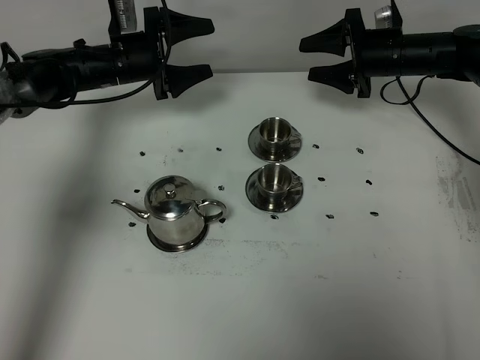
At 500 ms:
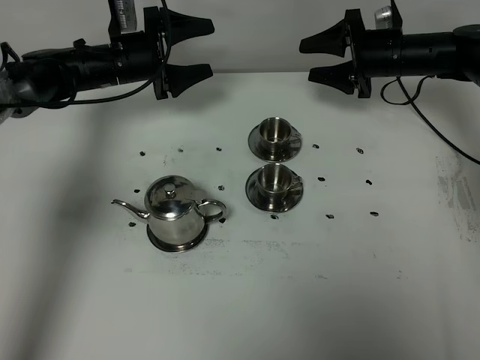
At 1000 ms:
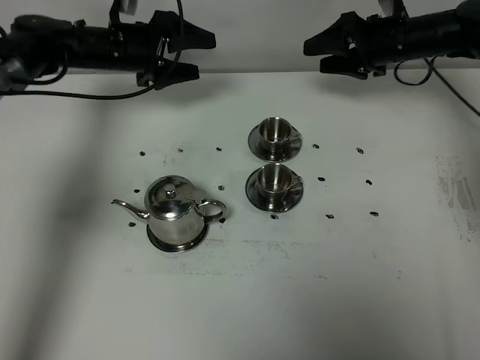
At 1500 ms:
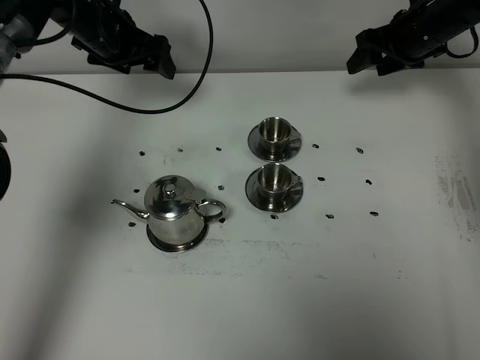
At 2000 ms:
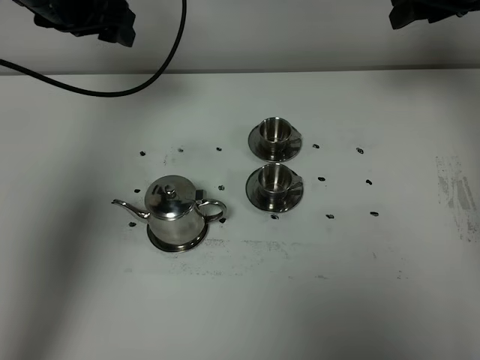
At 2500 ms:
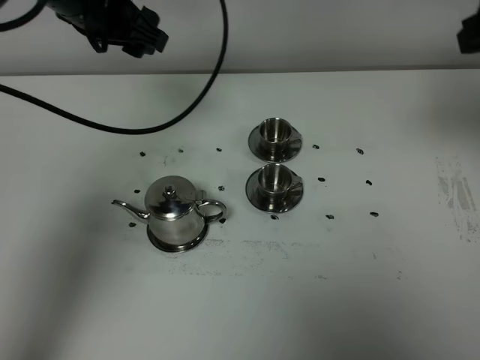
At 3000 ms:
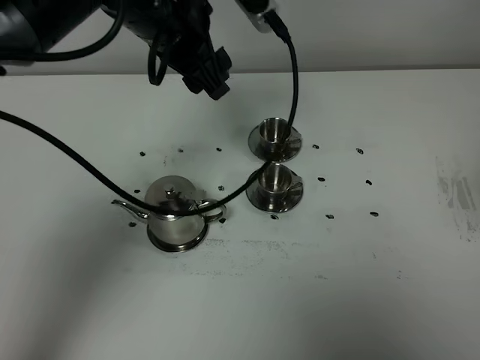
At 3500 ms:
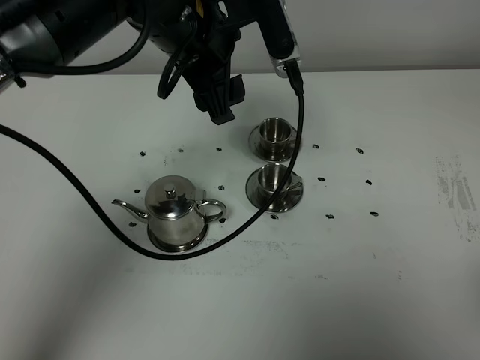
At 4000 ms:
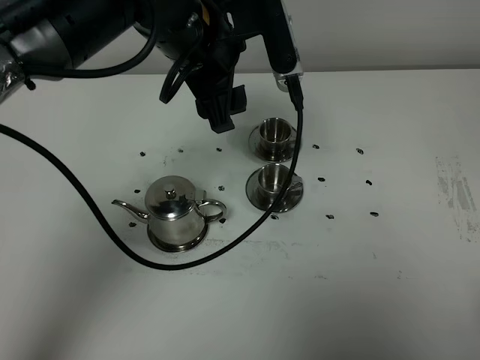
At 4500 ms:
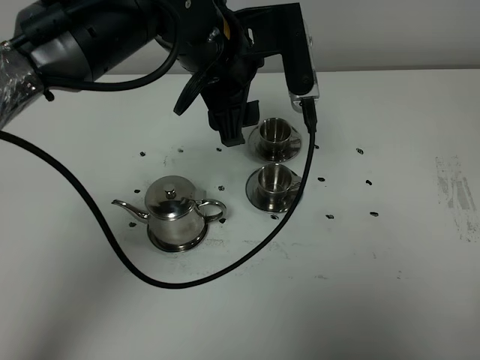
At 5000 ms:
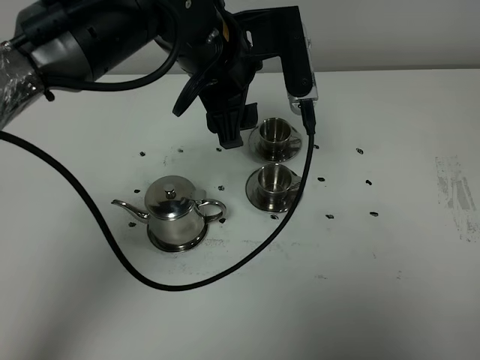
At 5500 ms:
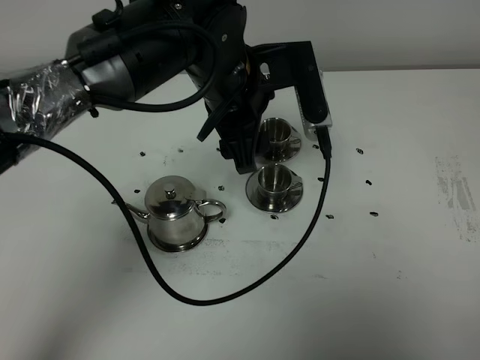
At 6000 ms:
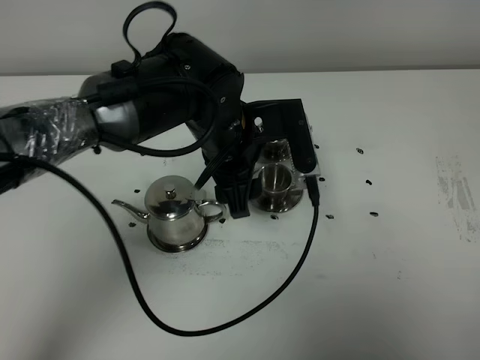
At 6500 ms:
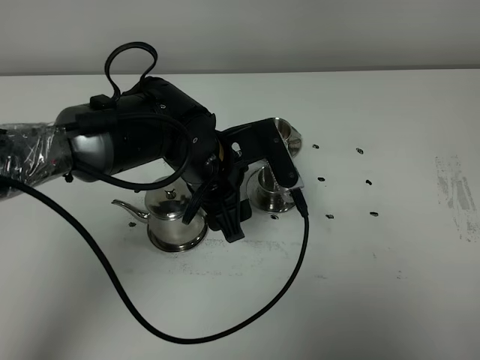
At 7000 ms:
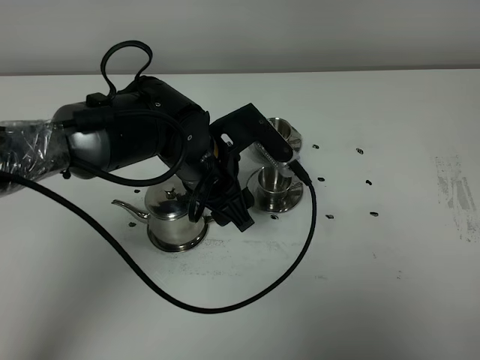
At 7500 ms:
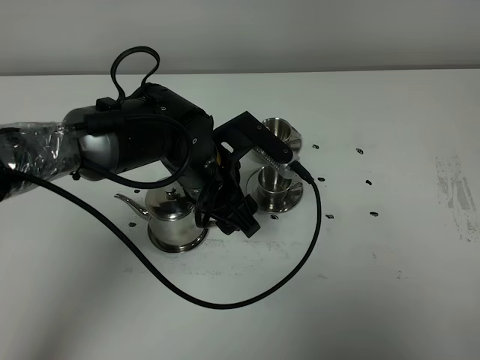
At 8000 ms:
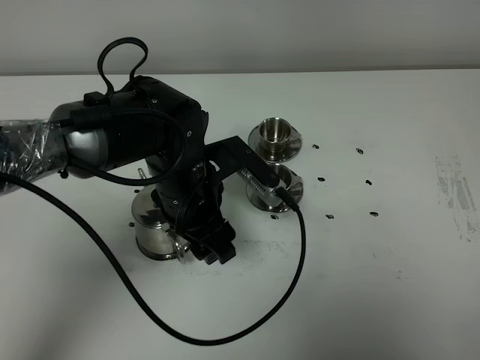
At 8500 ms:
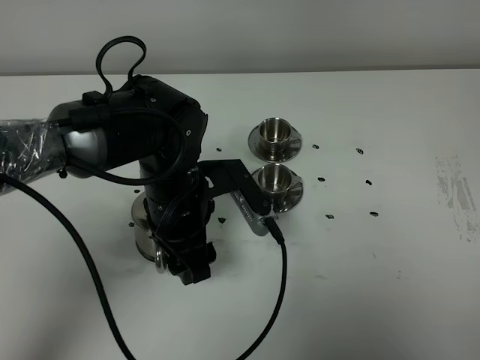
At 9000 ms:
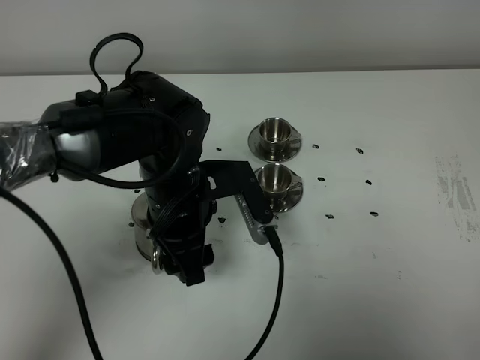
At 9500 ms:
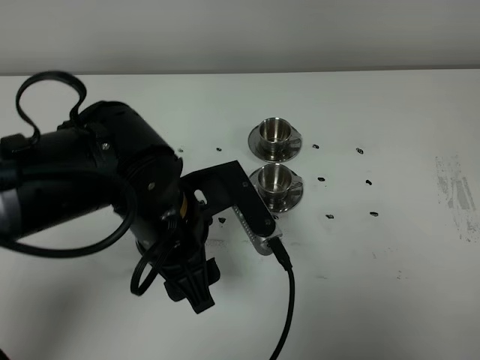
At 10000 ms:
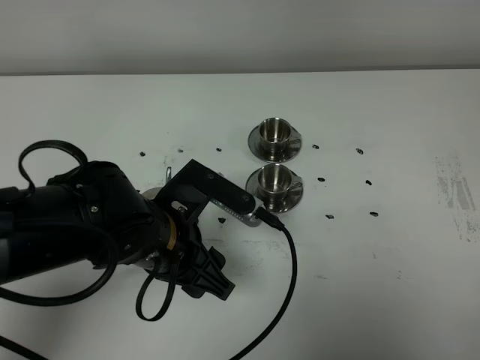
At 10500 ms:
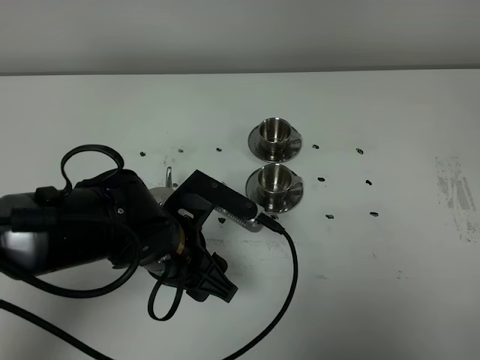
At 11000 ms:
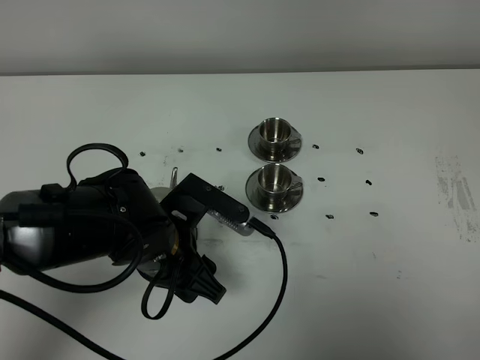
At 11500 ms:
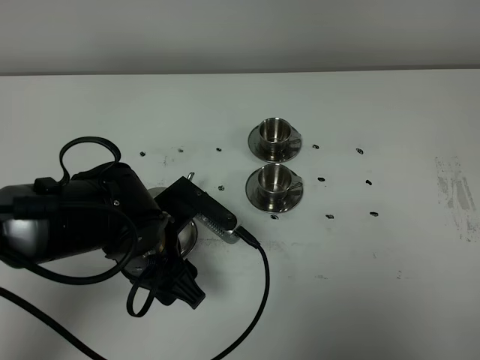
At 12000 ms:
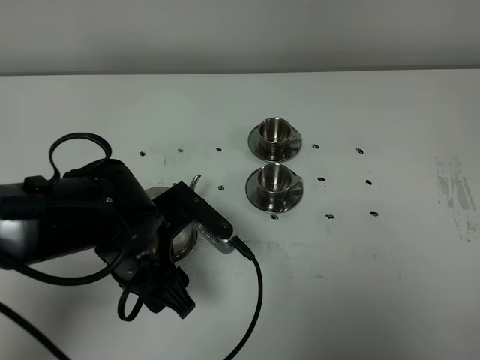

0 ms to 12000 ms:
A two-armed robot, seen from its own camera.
Task of the whole recording: grasp the stainless steel teapot and pour the tea into the two stainless steel teacups one by one, put the stainless steel teapot back in its original place.
0 ms to 2000 ms: The right gripper moves upward and backward, about 20 cm, while the left gripper is displaced upward by approximately 15 cm.
2000 ms to 4000 ms: The right gripper shifts roughly 40 cm backward, while the left gripper travels to the right and backward by about 20 cm.
4000 ms to 6000 ms: The left gripper heads downward, covering about 10 cm.
6000 ms to 8000 ms: The left gripper ends up approximately 5 cm from where it was.
8000 ms to 10000 ms: The left gripper shifts some 10 cm backward.
10000 ms to 12000 ms: The grippers stay close to where they were, moving slightly.

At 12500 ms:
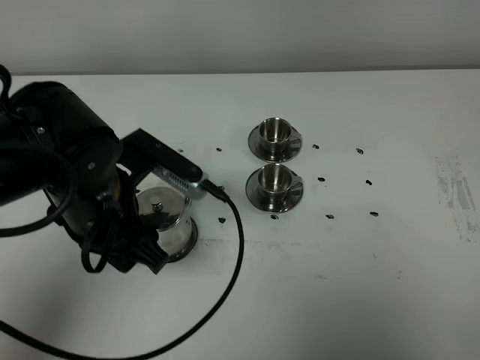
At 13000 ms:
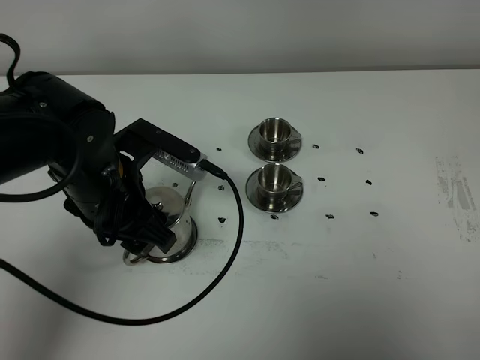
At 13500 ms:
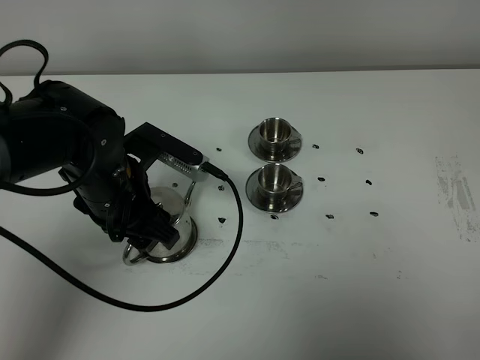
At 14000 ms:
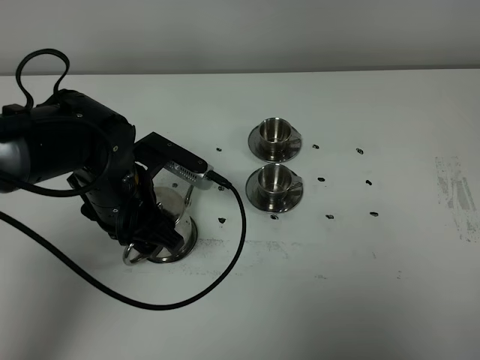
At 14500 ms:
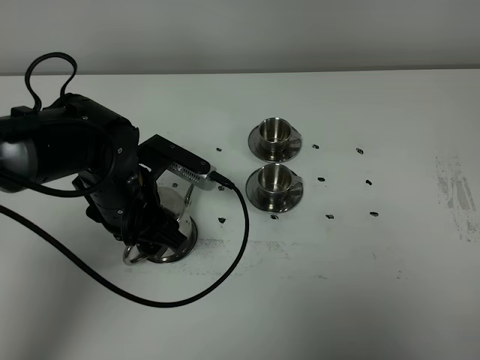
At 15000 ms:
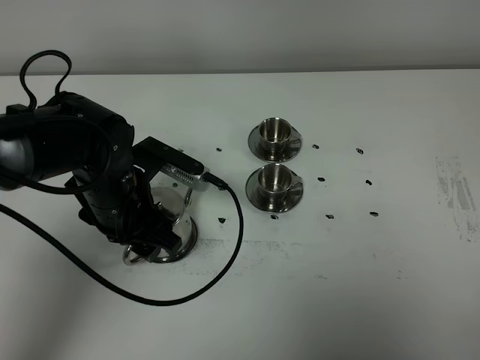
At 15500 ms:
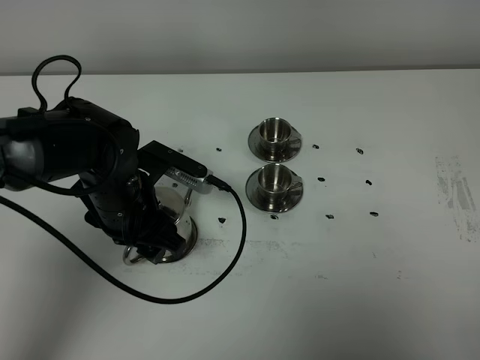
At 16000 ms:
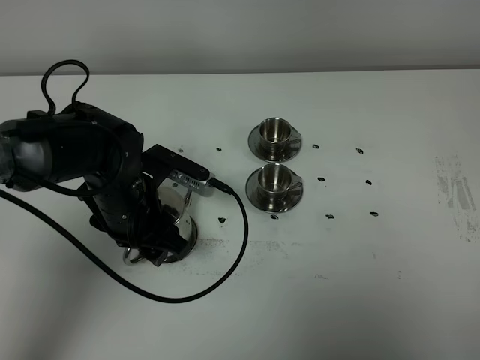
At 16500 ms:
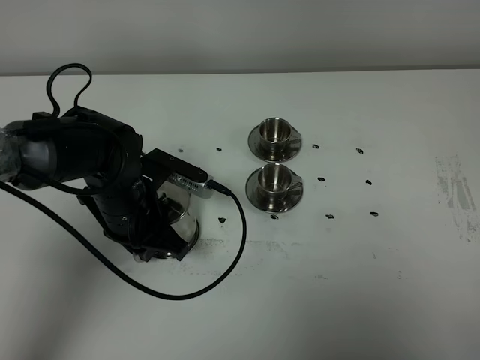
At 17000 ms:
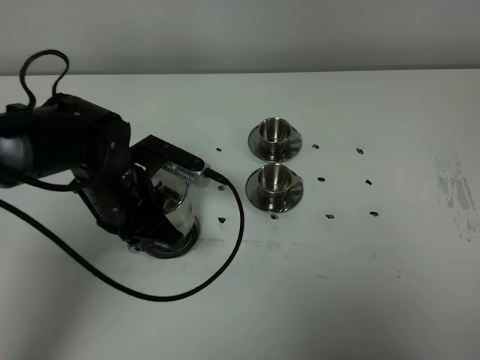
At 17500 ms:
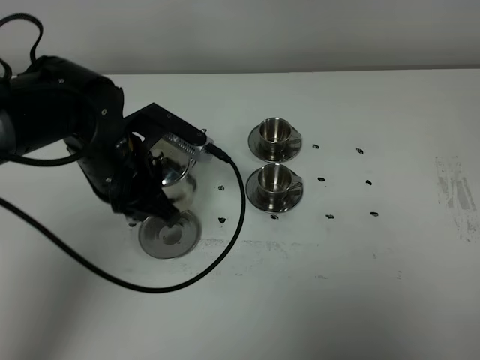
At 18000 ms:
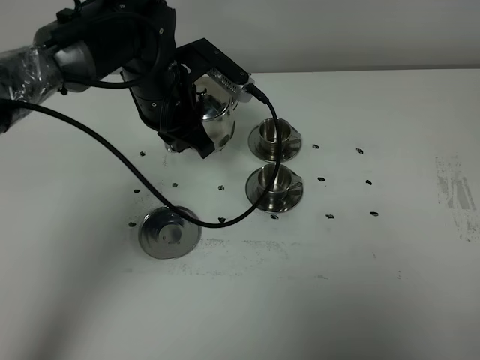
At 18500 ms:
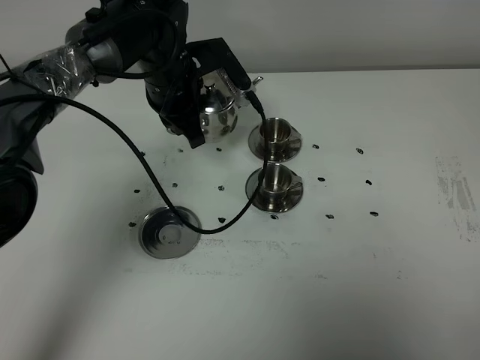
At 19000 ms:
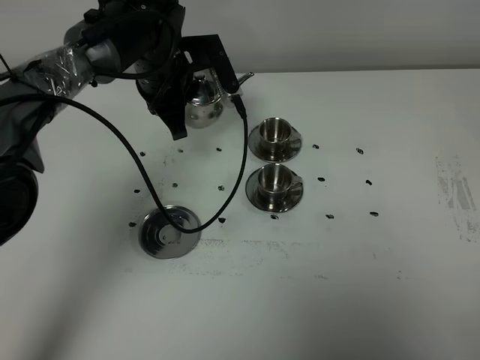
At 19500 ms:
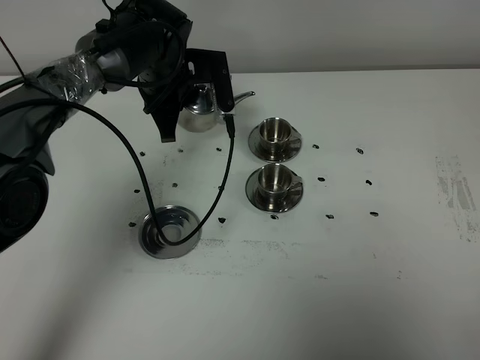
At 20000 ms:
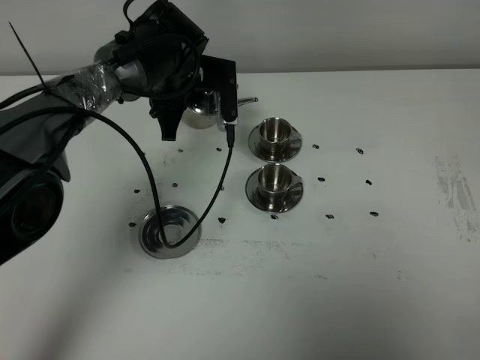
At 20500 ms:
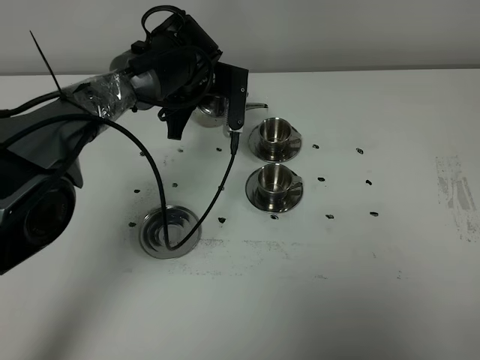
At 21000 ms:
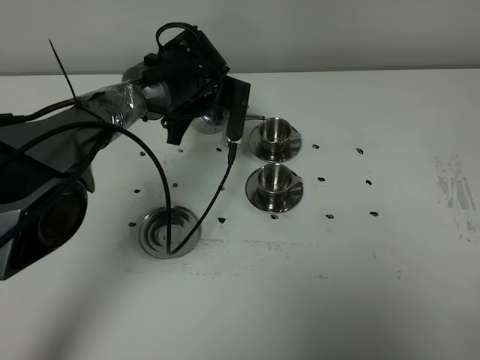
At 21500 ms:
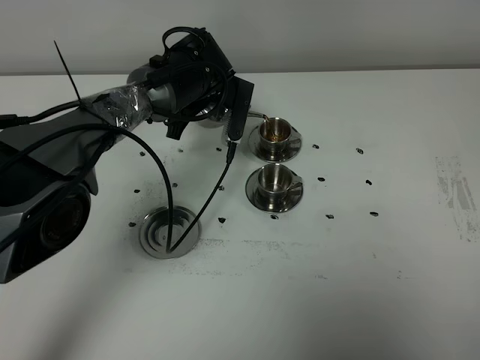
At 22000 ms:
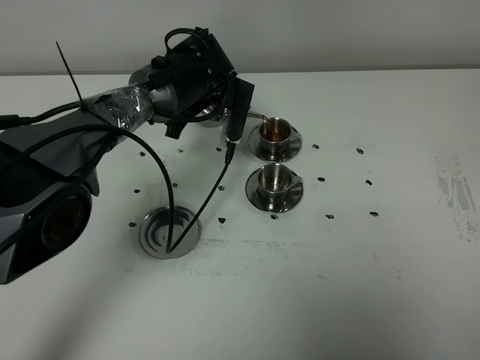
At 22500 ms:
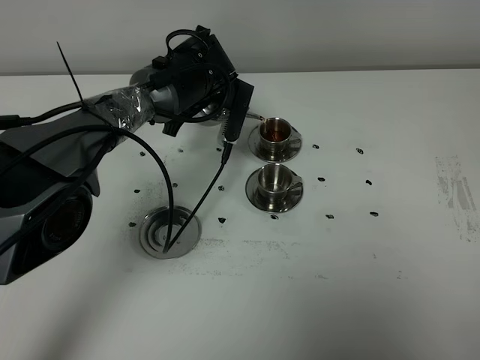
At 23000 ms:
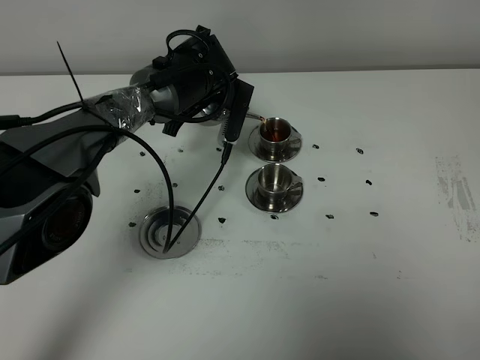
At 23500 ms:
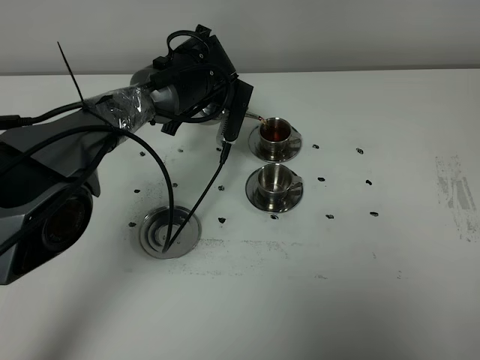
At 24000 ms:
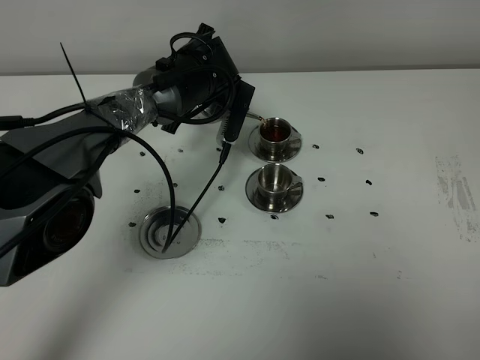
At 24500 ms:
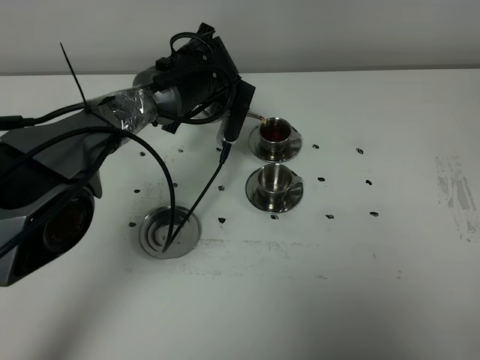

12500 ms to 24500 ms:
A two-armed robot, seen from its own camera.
Task of the whole recording: grasp the stainless steel teapot and pour the tea into the two stainless steel teacups one by one, put the stainless steel teapot back in its original place.
Step, 12500 ms to 16500 ms: Pick up the teapot with the left gripper.
12500 ms to 14500 ms: The left gripper moves downward and forward, some 10 cm.
14500 ms to 16500 ms: The left gripper closes its fingers.
16500 ms to 18500 ms: The left gripper is displaced forward and upward by roughly 15 cm.
20500 ms to 22500 ms: The grippers stay close to where they were, moving slightly.
22500 ms to 24500 ms: The two grippers keep their place.

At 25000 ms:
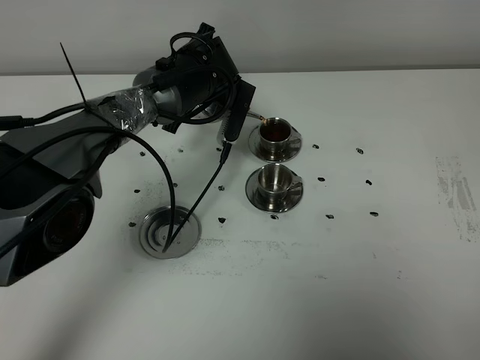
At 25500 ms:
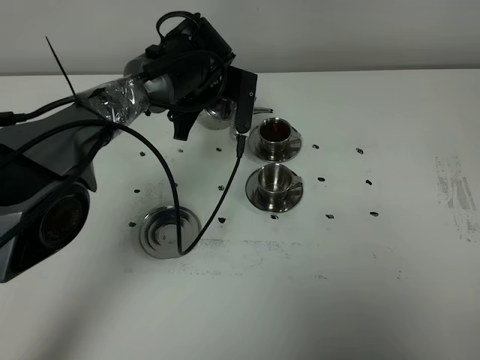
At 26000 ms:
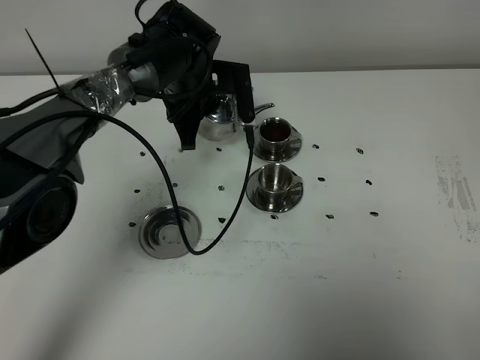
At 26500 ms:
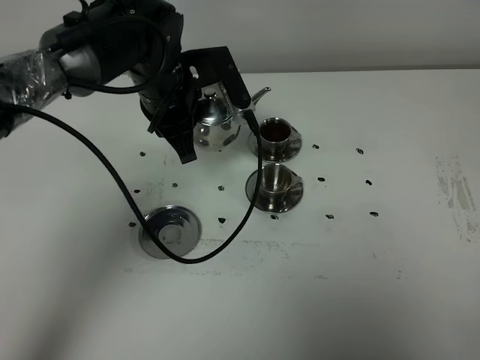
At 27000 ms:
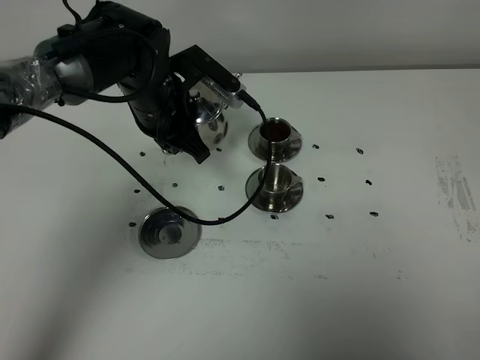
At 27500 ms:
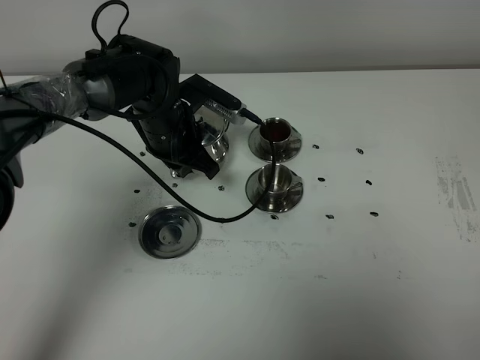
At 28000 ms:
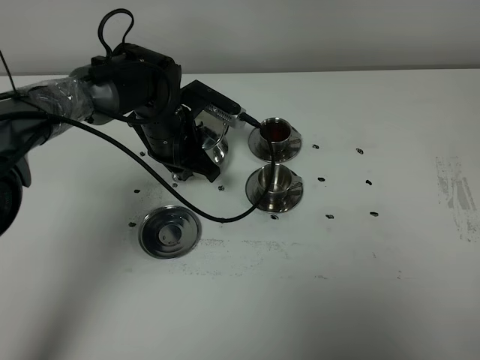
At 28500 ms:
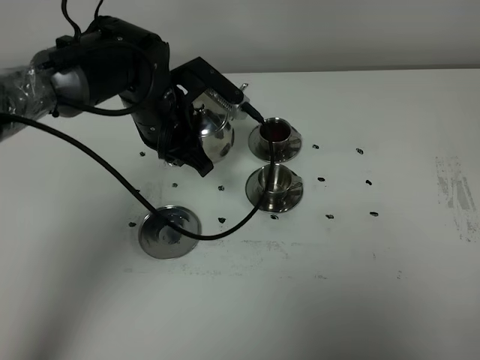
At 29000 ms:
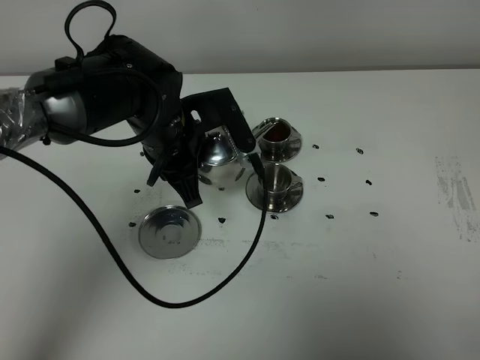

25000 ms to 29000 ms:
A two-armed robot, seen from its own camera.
Task of the whole recording: grasp the stainless steel teapot and pour the tea into the two stainless steel teacups one by one, put the stainless steel teapot back in its original place.
25000 ms to 27000 ms: The left gripper heads backward, covering about 5 cm.
27000 ms to 29000 ms: The left gripper heads backward, covering approximately 5 cm.
